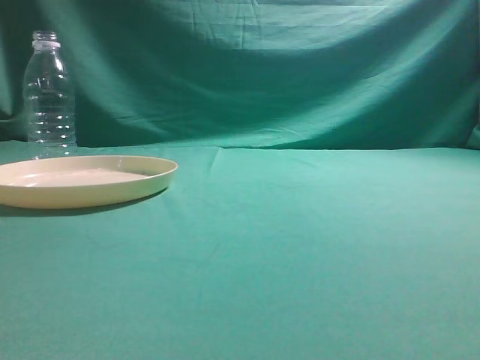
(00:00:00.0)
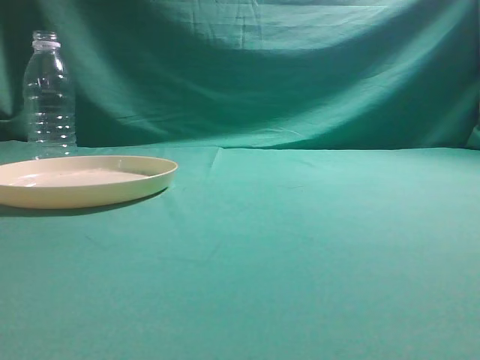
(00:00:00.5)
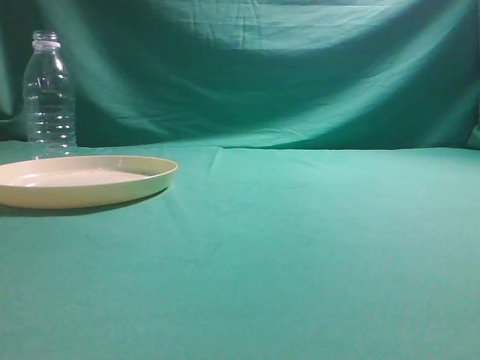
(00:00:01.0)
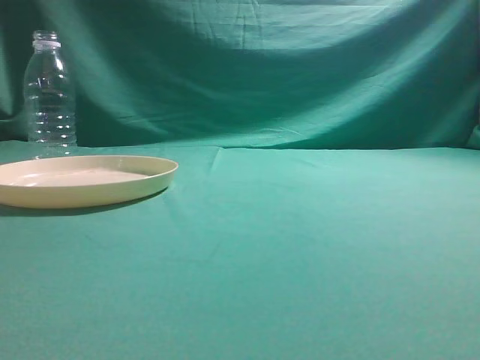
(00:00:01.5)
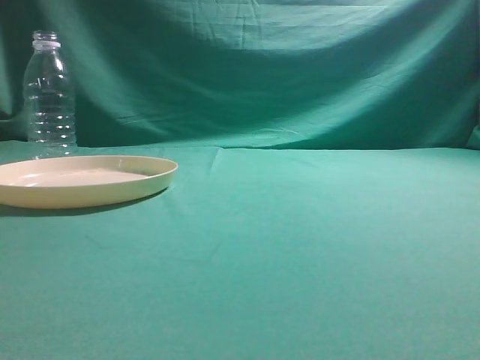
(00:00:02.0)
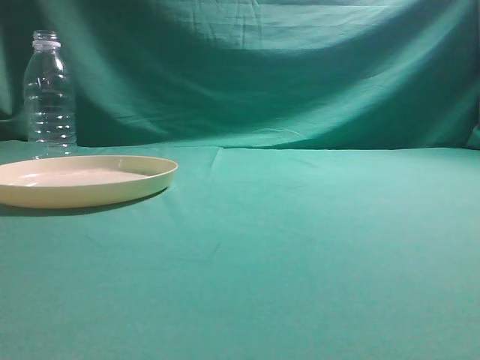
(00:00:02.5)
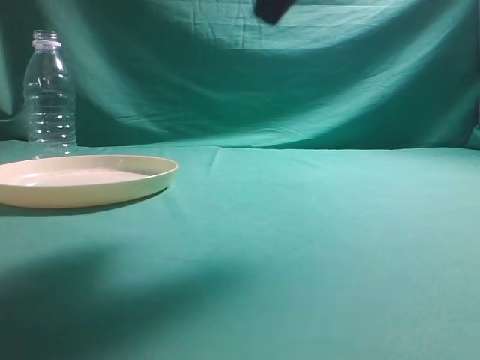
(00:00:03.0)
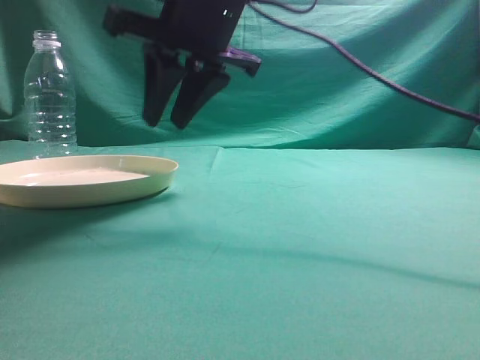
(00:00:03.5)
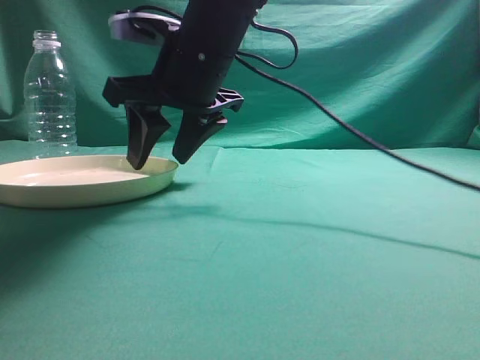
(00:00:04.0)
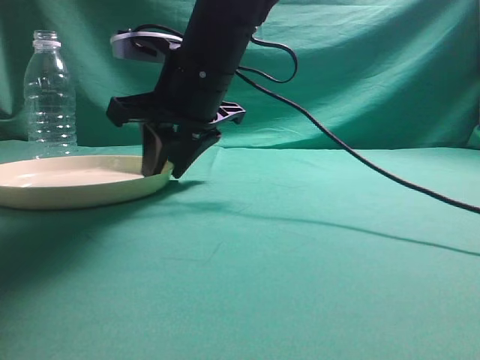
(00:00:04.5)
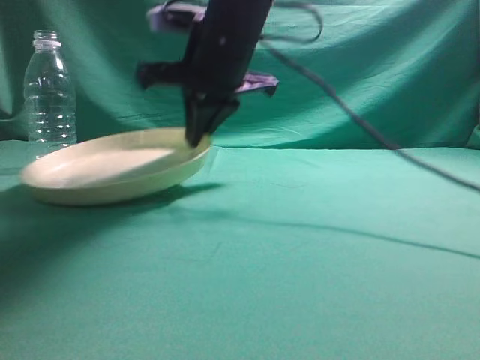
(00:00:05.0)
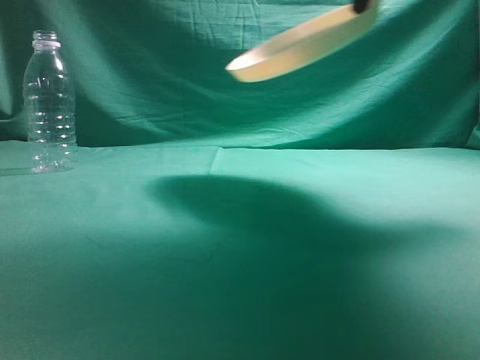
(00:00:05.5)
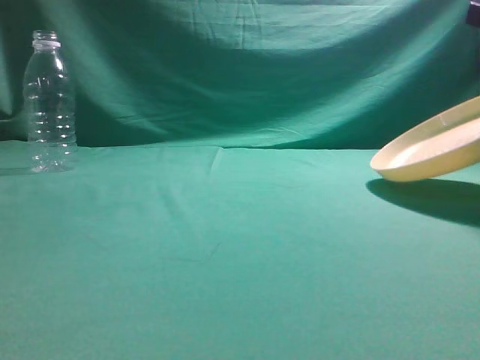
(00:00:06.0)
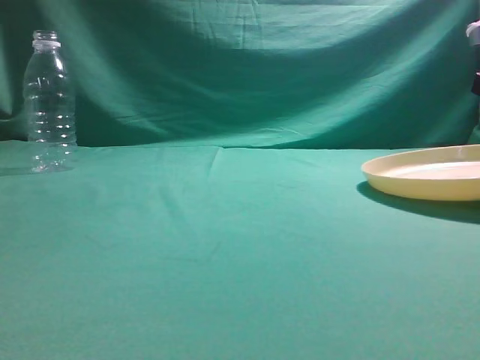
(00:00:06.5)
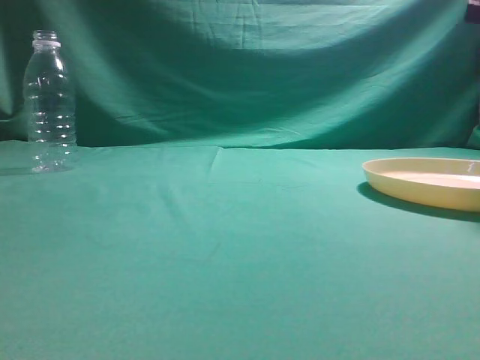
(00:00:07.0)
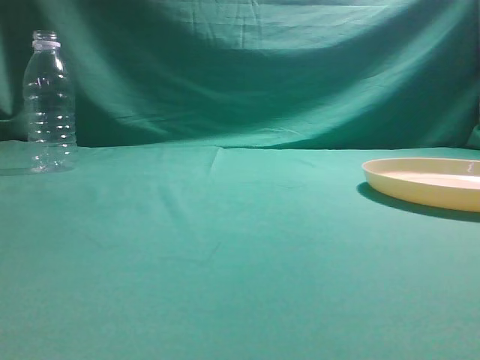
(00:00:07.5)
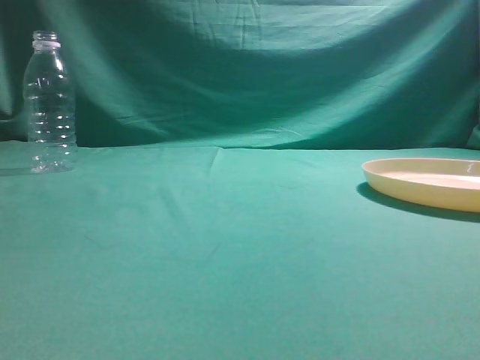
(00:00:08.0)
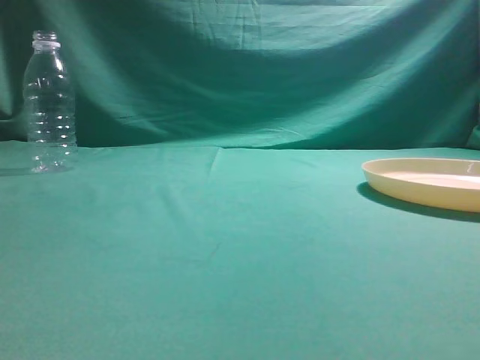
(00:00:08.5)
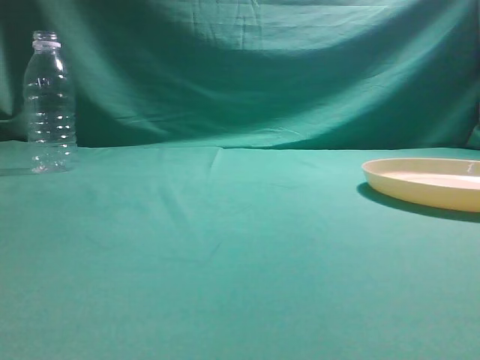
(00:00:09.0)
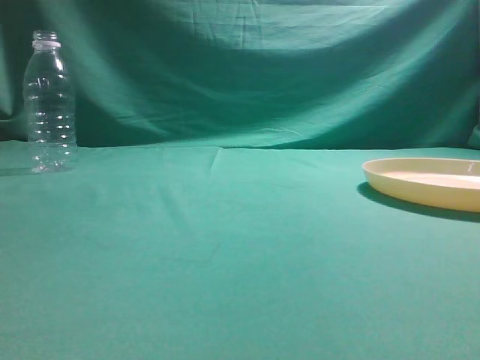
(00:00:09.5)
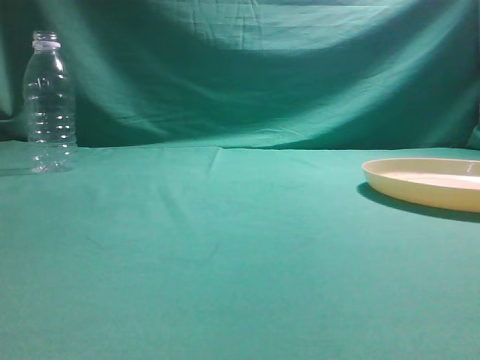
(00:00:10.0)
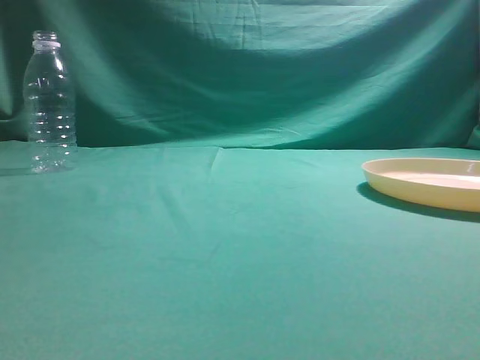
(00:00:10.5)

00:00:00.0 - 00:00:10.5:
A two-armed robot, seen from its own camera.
Step, 00:00:00.0 - 00:00:05.0: Pick the container that can hold fruits.
Step, 00:00:05.5 - 00:00:06.5: Move the picked object to the right side of the table.
00:00:02.0 - 00:00:04.0: The right gripper moves forward and to the left, about 40 cm, and opens up.
00:00:04.0 - 00:00:06.5: The right gripper goes roughly 35 cm to the right, and closes its fingers.
00:00:06.5 - 00:00:08.5: The right gripper is displaced backward and upward by about 35 cm, and opens and closes again.
